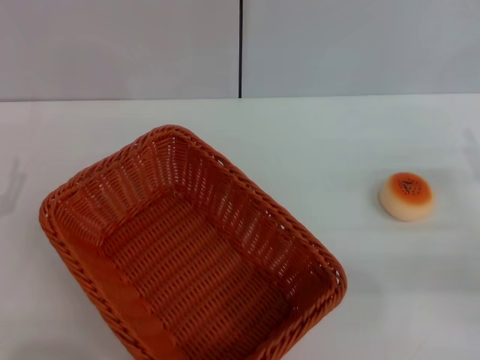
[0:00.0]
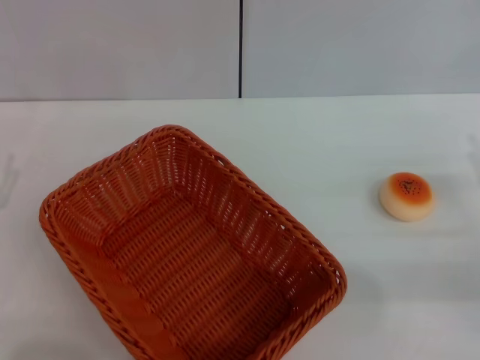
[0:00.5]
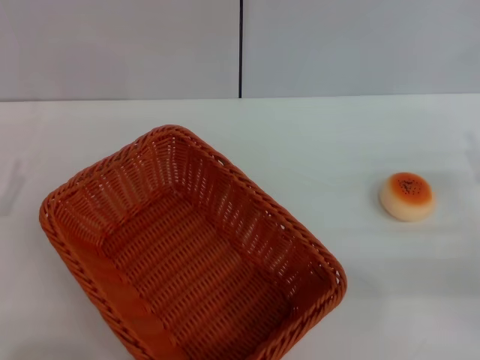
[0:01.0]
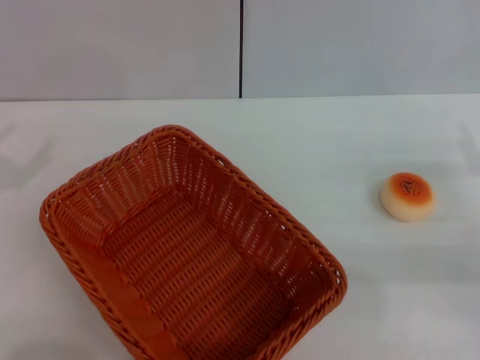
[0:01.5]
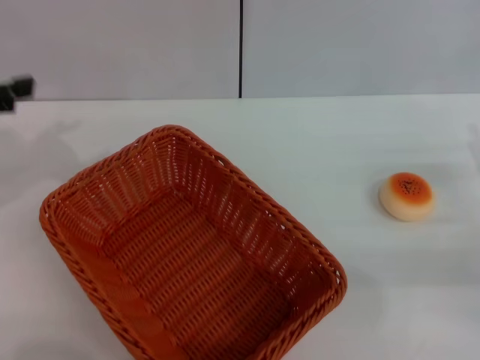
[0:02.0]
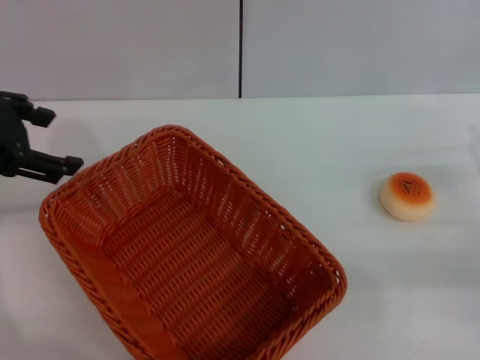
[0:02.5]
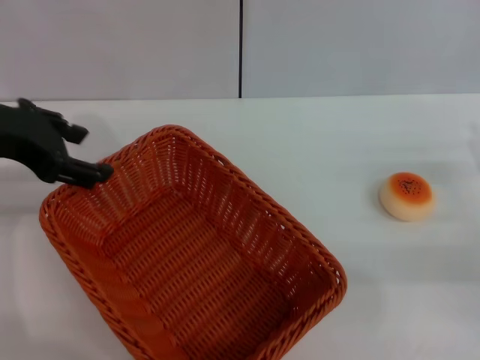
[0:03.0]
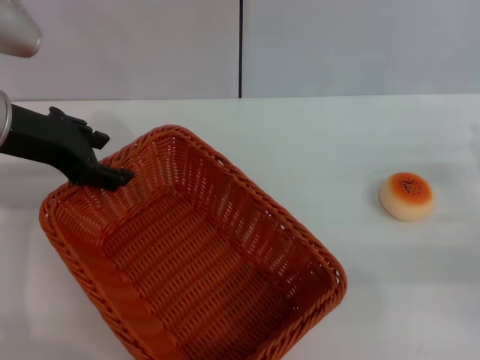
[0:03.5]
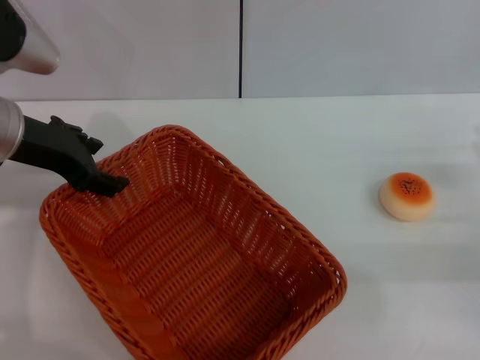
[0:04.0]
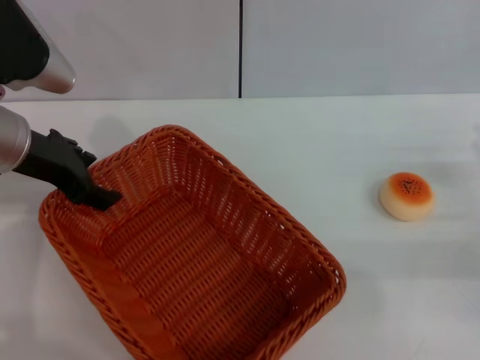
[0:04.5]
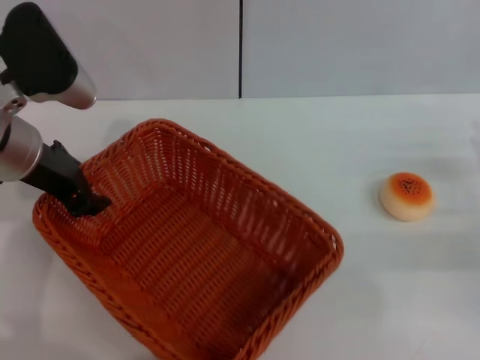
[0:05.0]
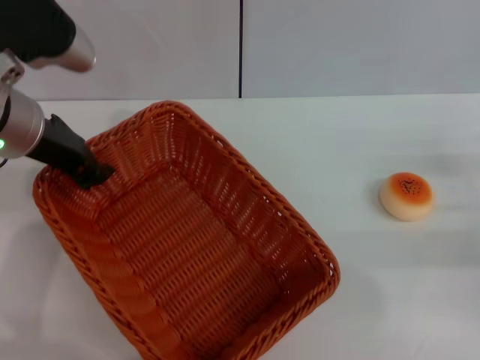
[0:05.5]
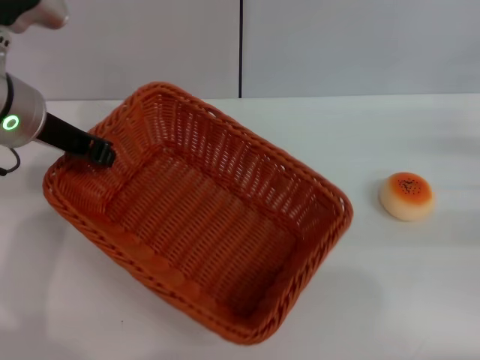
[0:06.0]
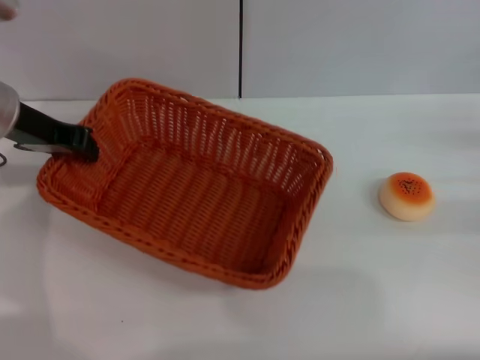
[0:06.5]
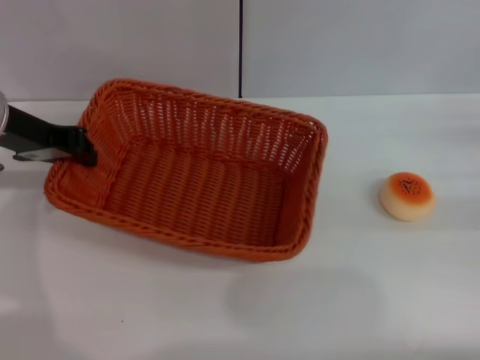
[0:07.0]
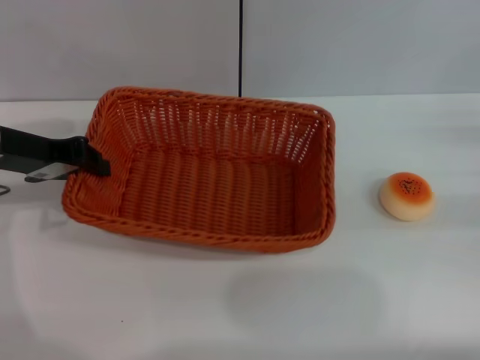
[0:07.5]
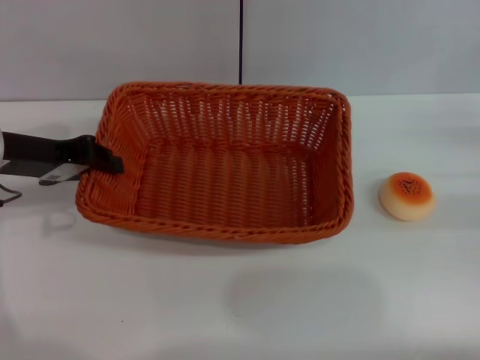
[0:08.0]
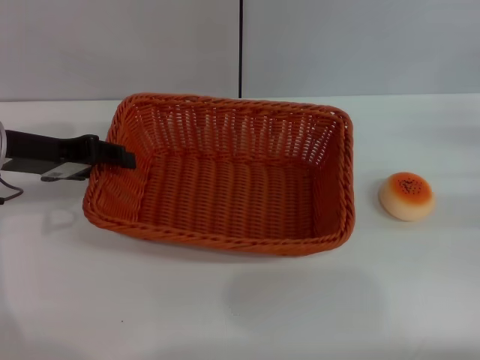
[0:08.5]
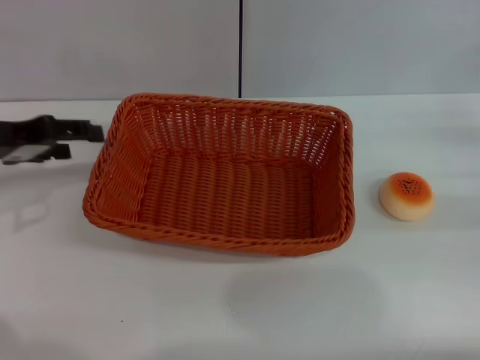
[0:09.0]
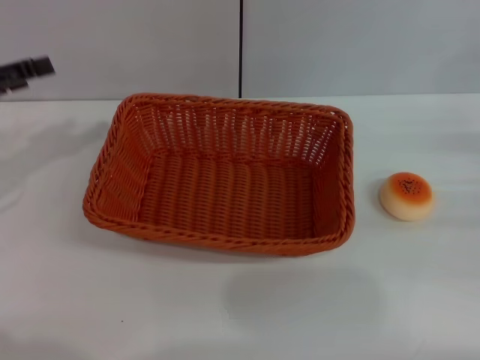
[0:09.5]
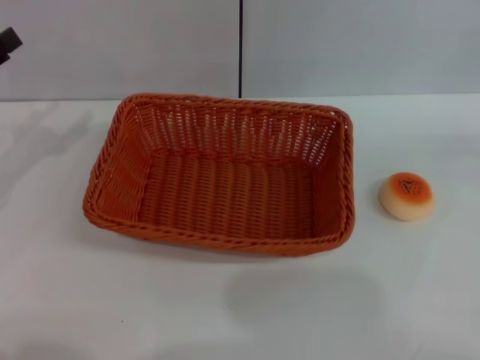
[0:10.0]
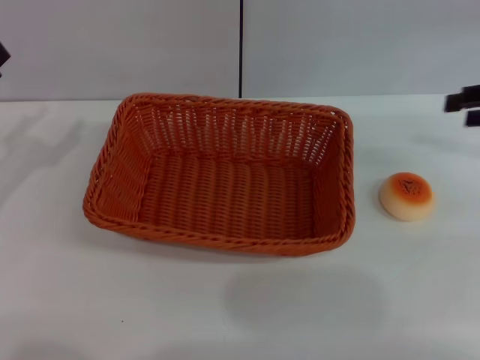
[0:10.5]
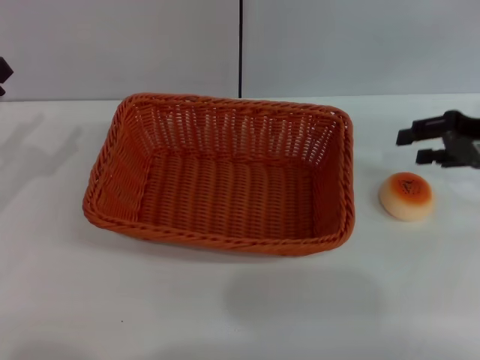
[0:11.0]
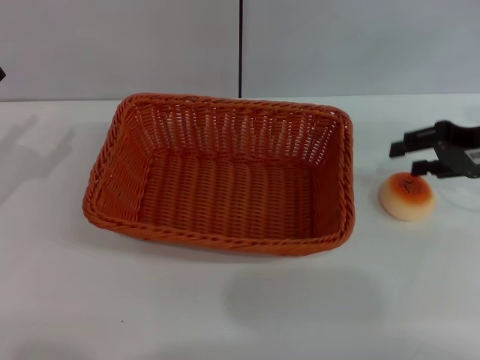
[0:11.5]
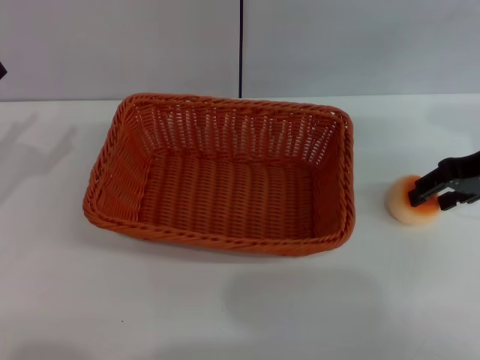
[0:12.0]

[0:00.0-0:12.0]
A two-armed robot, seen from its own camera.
Step, 0:00.0 to 0:09.0: Move the basket to the center of view with the left gripper.
0:02.0 to 0:04.0: The left gripper heads to the right, forward and downward, covering about 15 cm.
0:04.0 to 0:06.0: The left gripper closes up. The right gripper changes place by some 5 cm.
0:06.0 to 0:08.0: The left gripper heads to the left, covering some 5 cm.
0:08.0 to 0:10.0: The right gripper shifts roughly 10 cm upward, while the left gripper travels to the left by some 10 cm, and opens.
0:10.0 to 0:12.0: The right gripper travels to the left by about 15 cm.

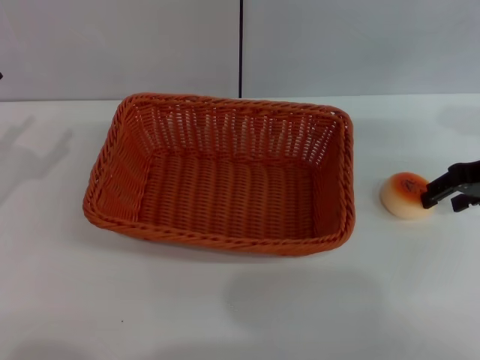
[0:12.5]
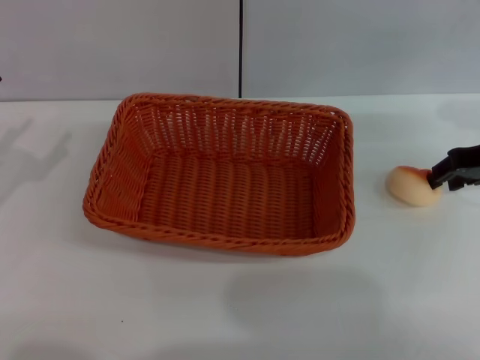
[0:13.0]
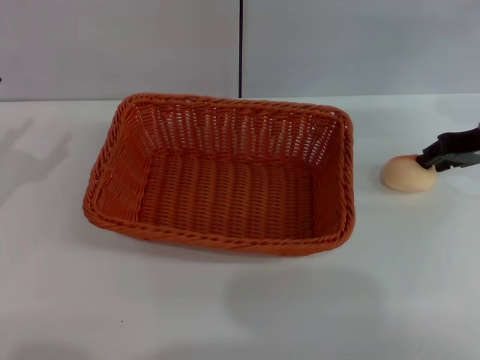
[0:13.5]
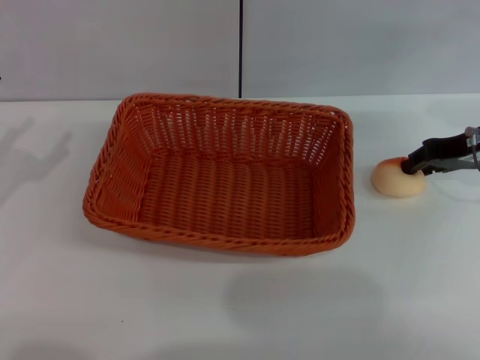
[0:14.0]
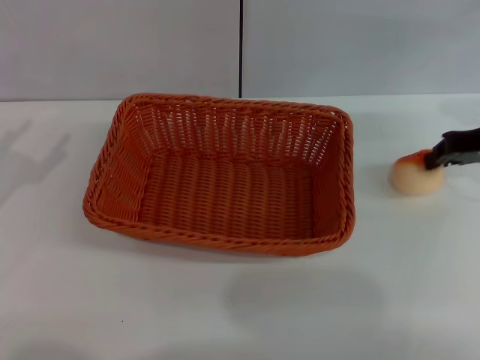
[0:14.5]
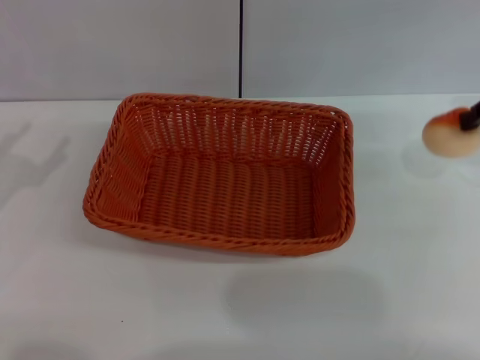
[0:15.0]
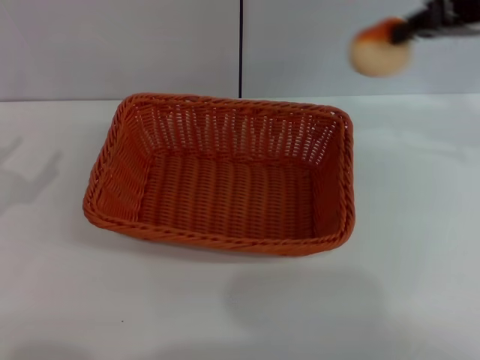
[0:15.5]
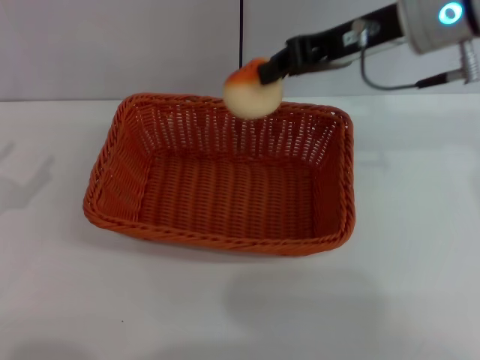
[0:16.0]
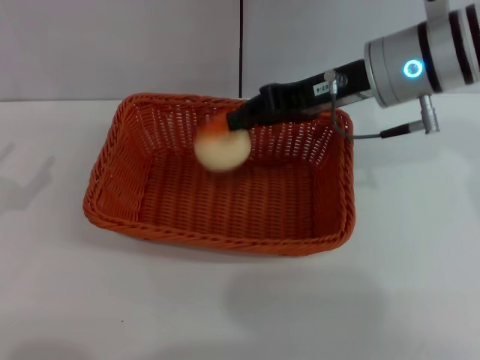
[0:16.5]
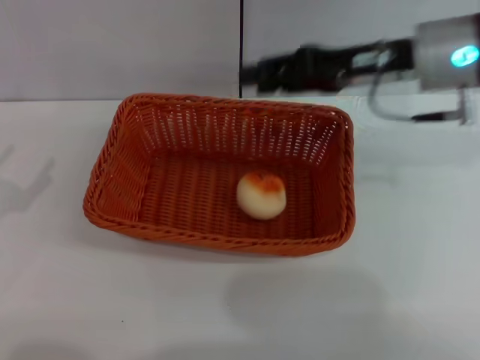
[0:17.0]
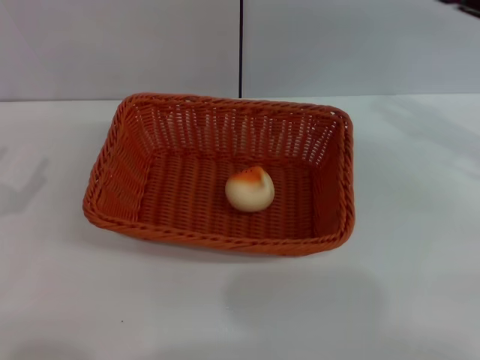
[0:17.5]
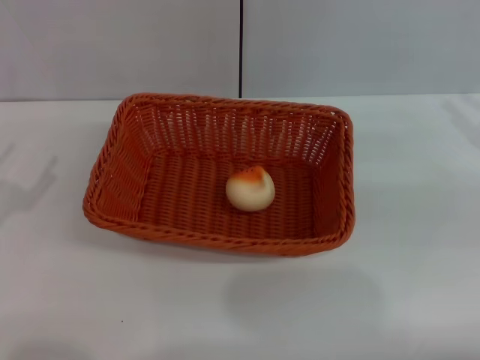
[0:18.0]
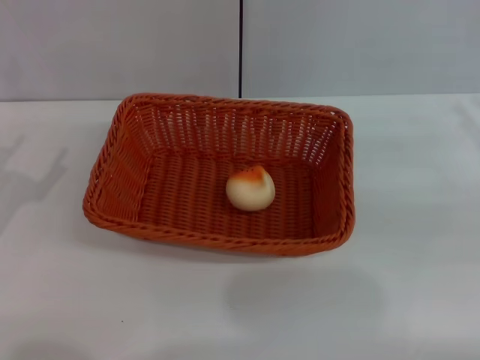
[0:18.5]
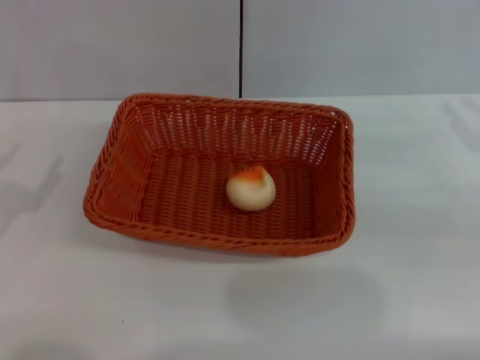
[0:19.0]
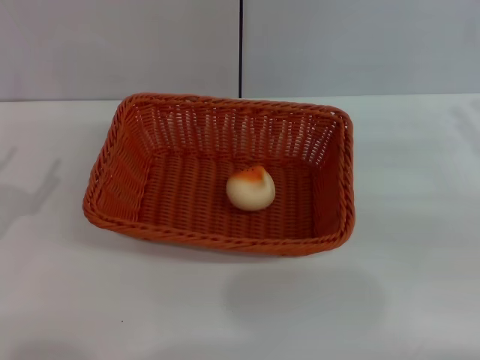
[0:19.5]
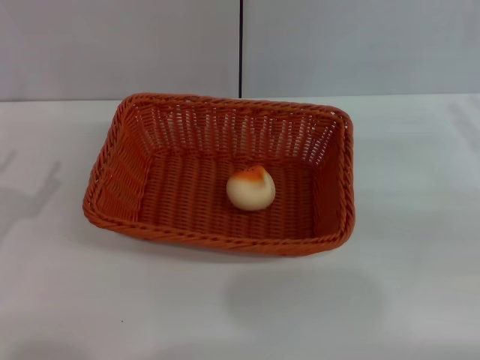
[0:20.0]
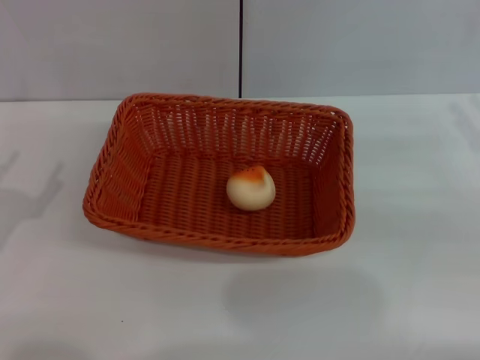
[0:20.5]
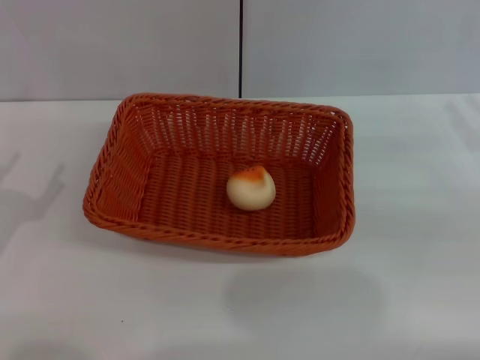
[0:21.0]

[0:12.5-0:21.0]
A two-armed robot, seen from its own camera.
Step, 0:12.5 to 0:14.5: Pick up the egg yolk pastry with the right gripper.
Step, 0:15.0 to 0:16.5: Place the egg yolk pastry into the basket with the right gripper.
0:12.5 to 0:14.5: The right gripper closes its fingers.
0:14.5 to 0:16.5: The right gripper is displaced to the left by about 15 cm.
0:16.5 to 0:19.0: The right gripper is displaced to the right by roughly 20 cm, and opens.
